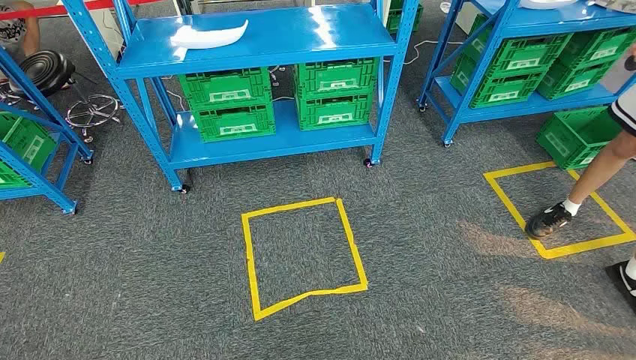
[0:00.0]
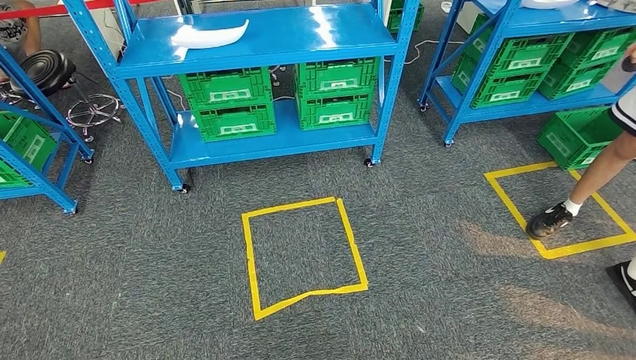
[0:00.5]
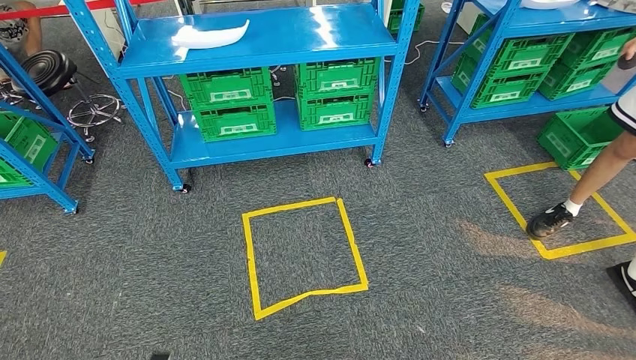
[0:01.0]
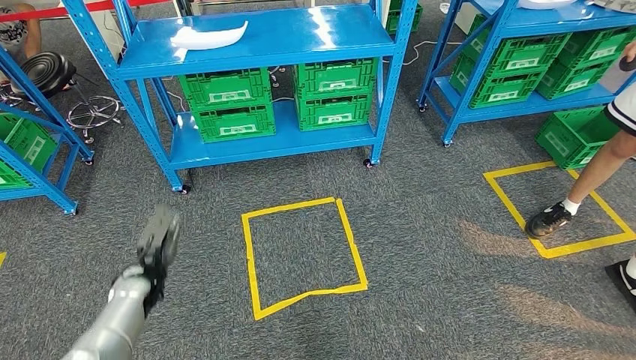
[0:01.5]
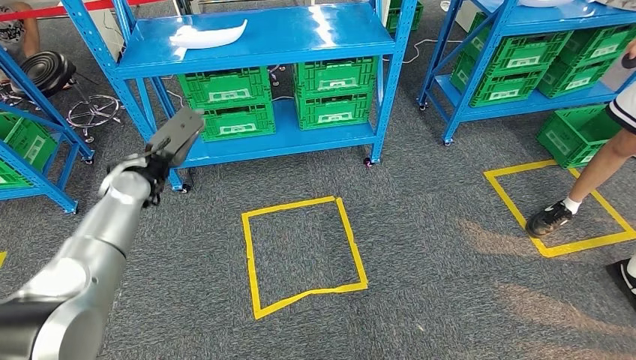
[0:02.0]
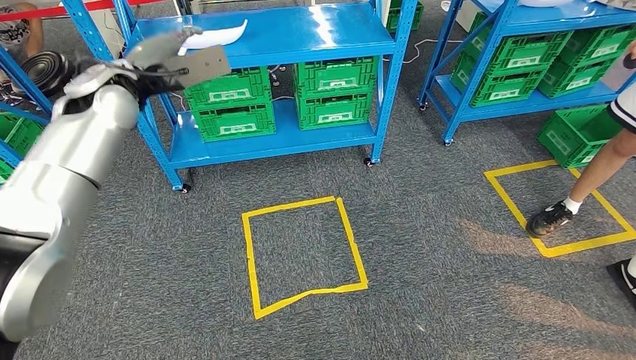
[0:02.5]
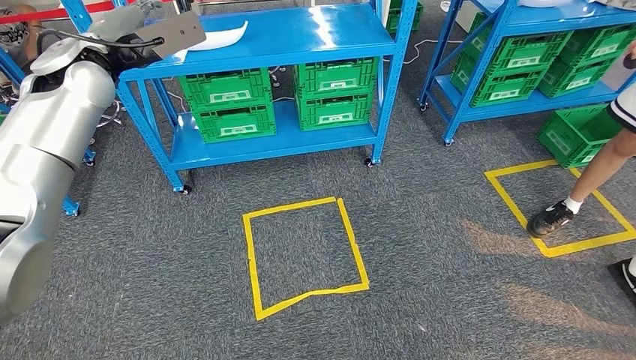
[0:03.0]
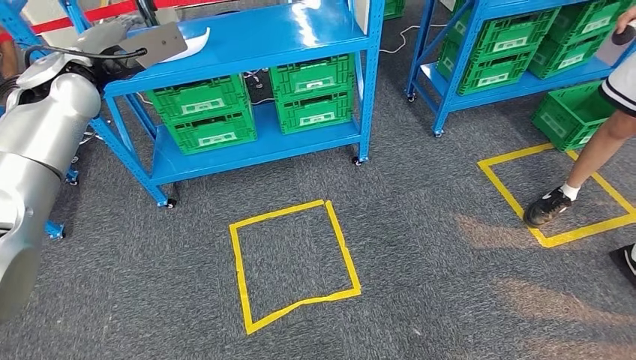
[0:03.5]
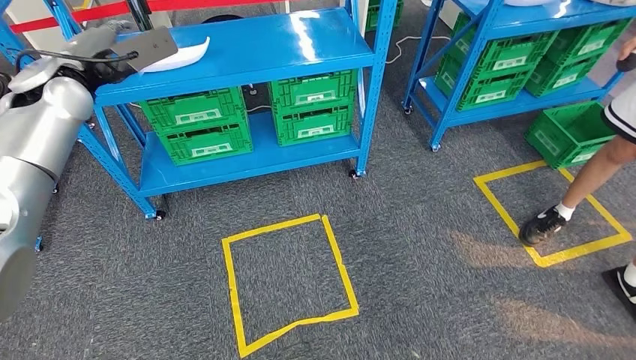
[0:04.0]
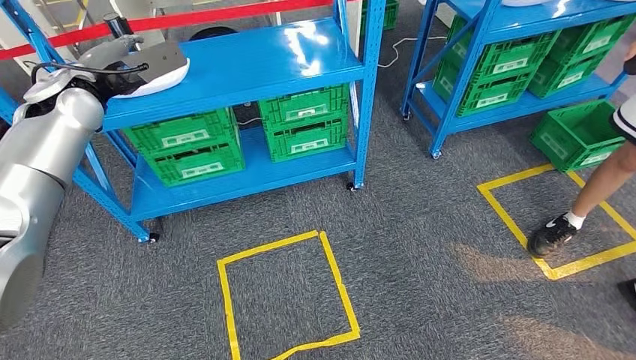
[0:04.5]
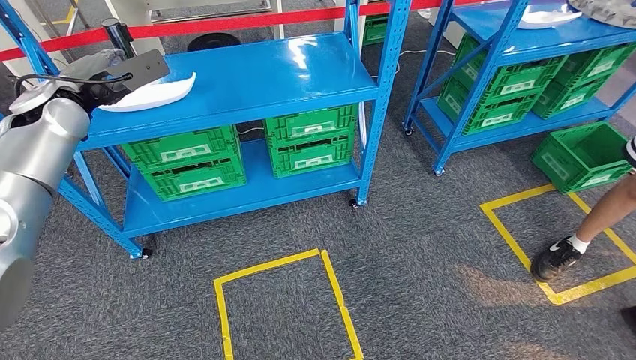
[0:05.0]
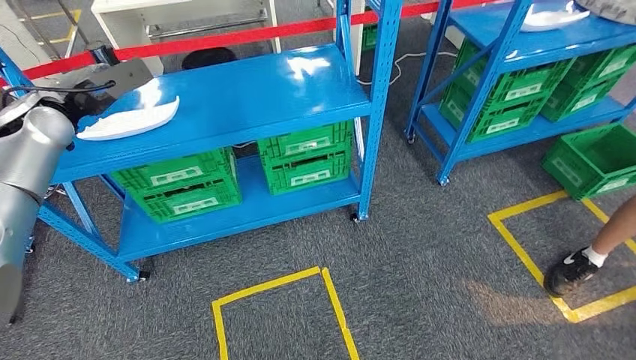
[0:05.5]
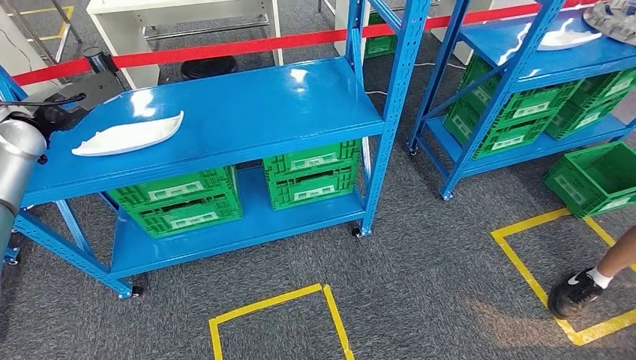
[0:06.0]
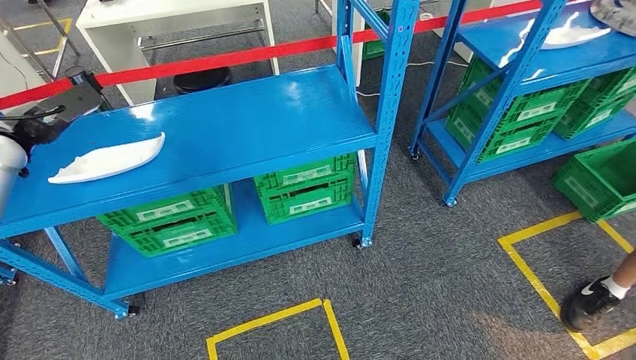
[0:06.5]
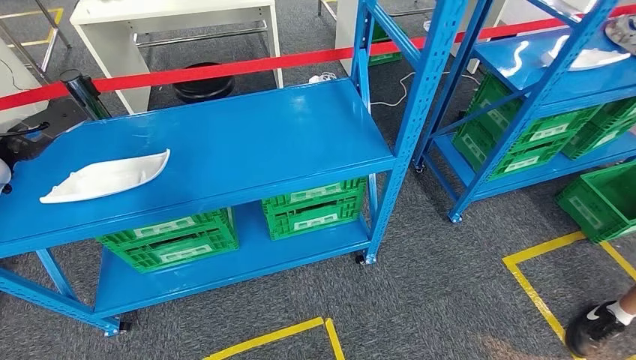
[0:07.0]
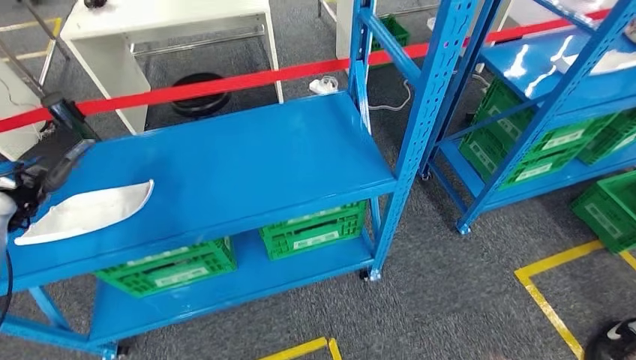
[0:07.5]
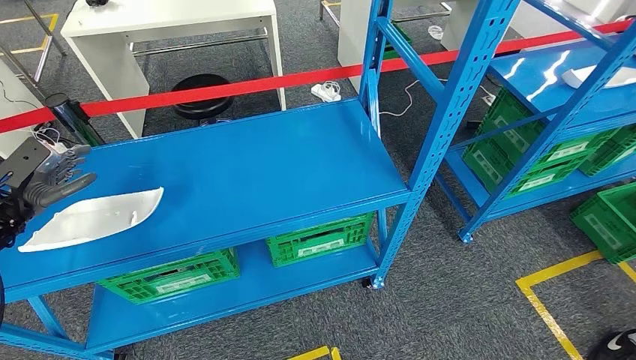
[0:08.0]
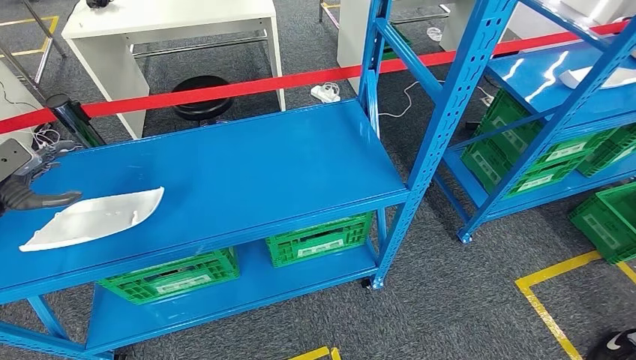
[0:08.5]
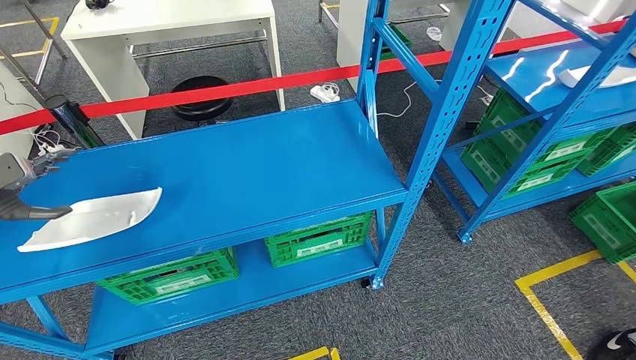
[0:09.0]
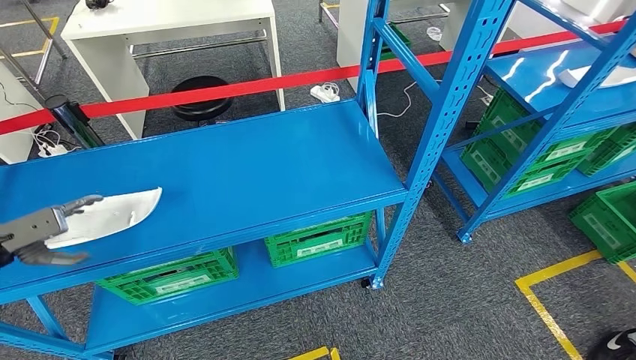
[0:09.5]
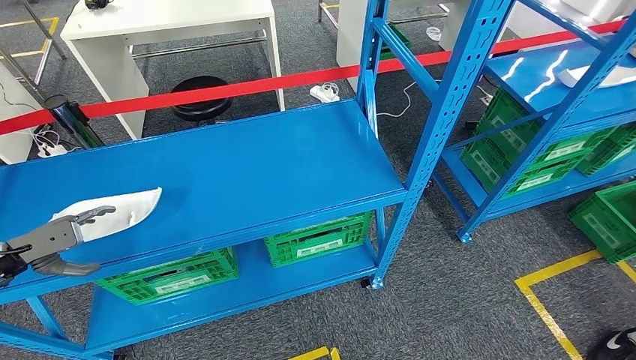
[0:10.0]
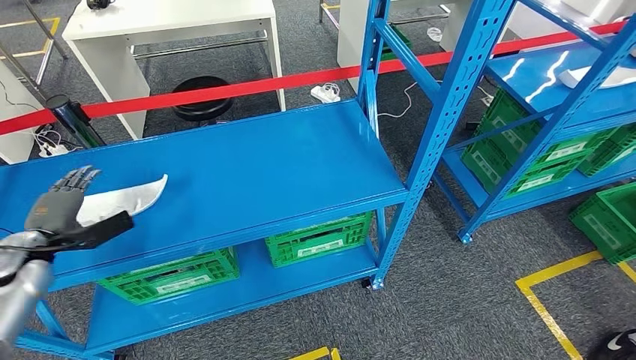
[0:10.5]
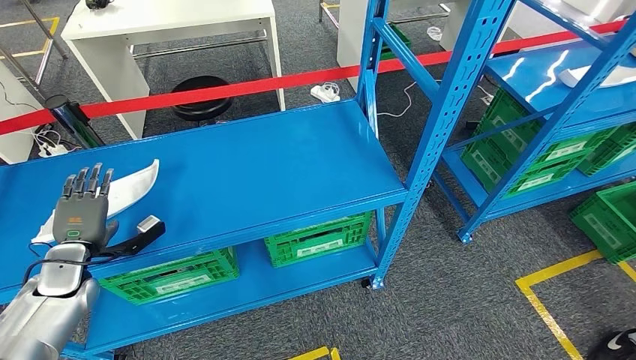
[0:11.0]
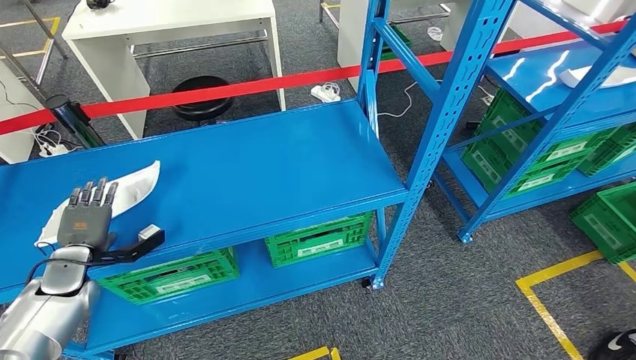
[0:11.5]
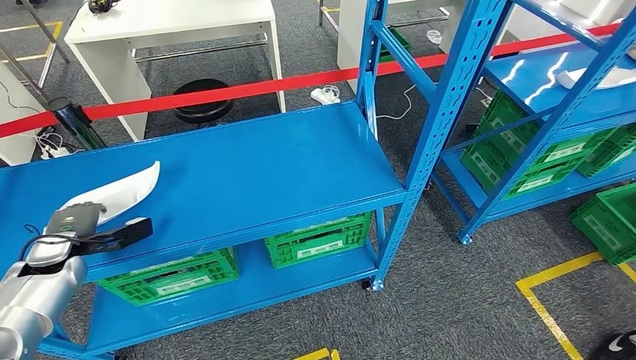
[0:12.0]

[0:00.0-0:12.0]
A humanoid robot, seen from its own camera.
0:08.0 to 0:10.0: The left hand shifts about 5 cm backward.
0:10.0 to 0:12.0: The left hand travels to the right by roughly 10 cm.

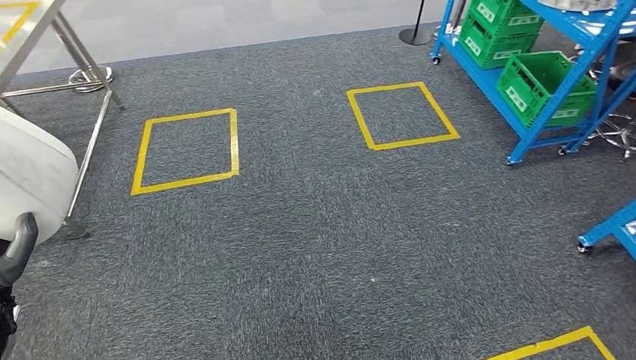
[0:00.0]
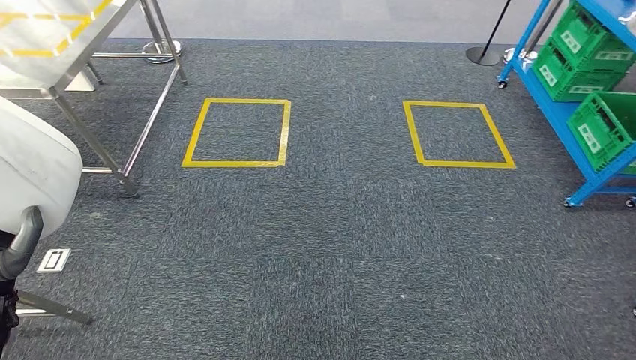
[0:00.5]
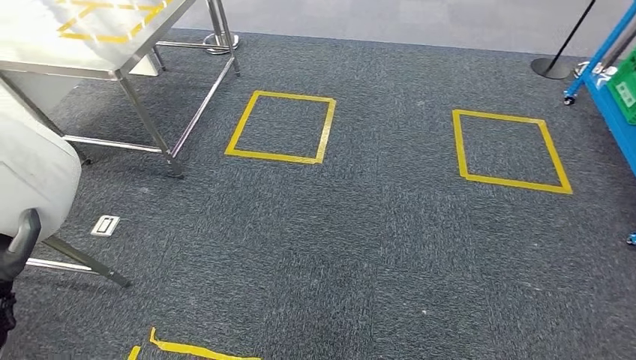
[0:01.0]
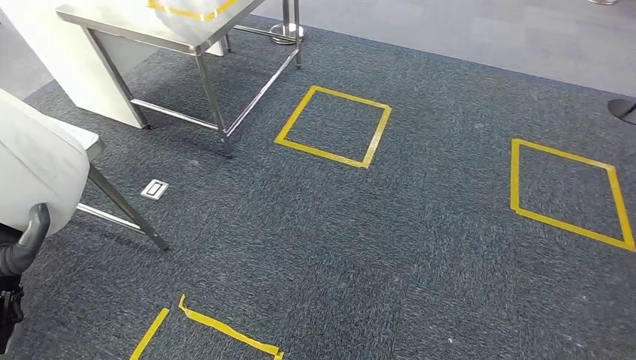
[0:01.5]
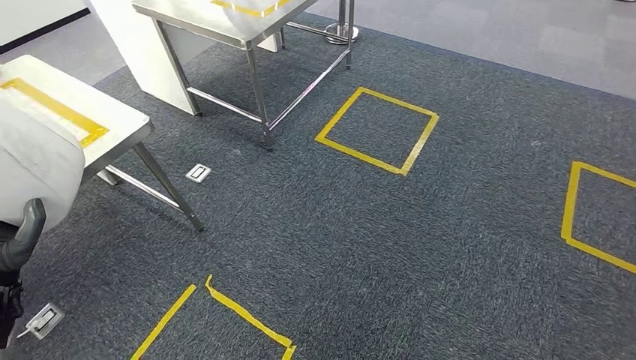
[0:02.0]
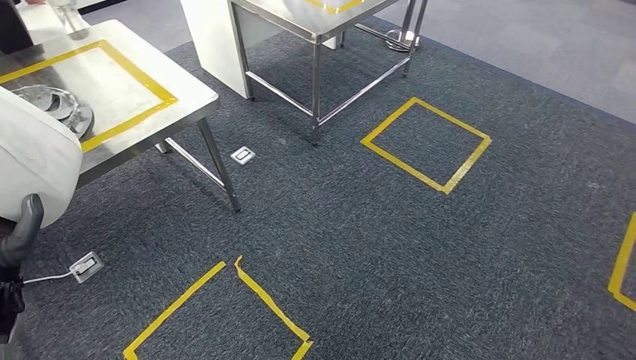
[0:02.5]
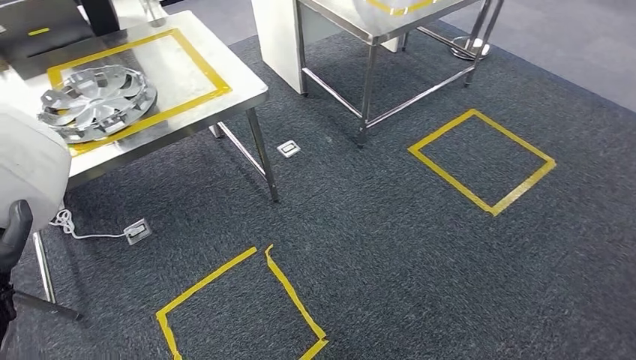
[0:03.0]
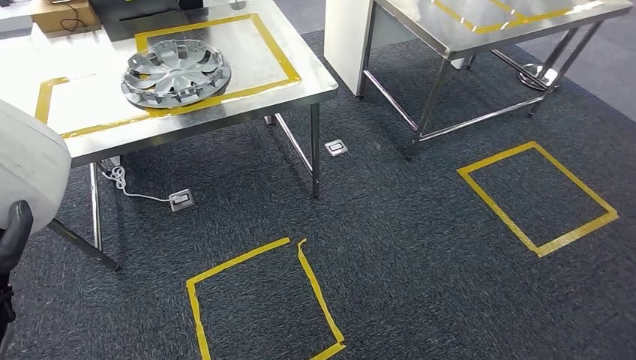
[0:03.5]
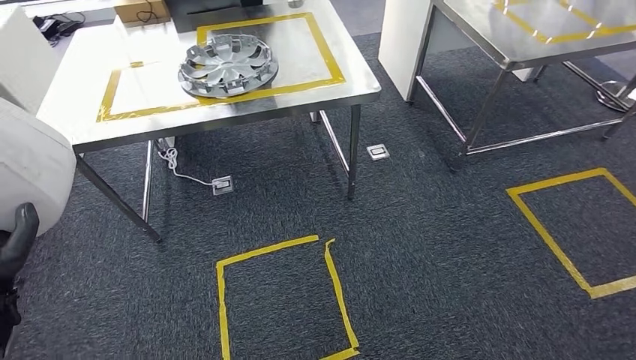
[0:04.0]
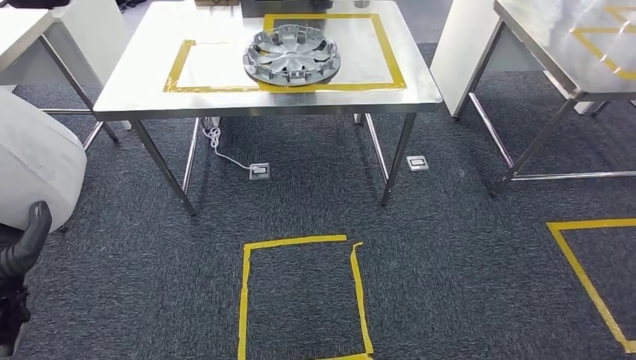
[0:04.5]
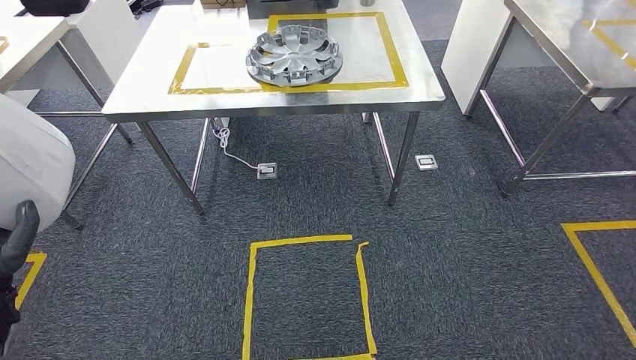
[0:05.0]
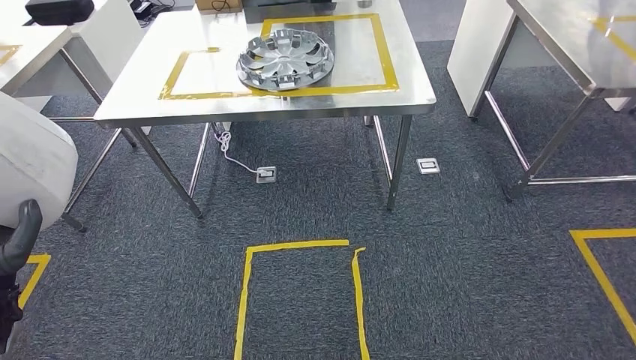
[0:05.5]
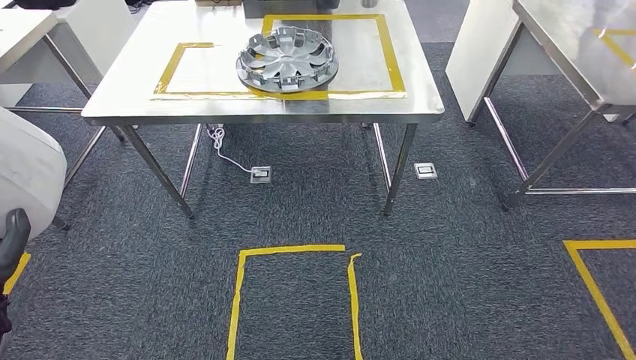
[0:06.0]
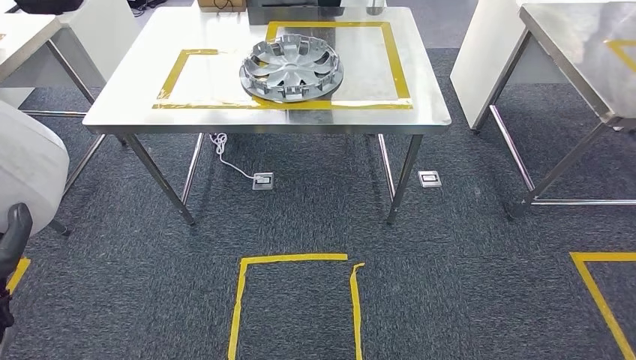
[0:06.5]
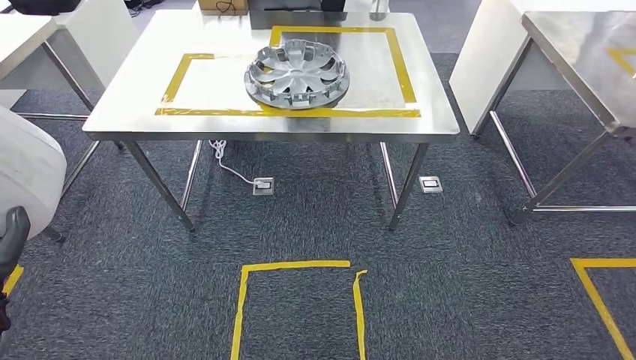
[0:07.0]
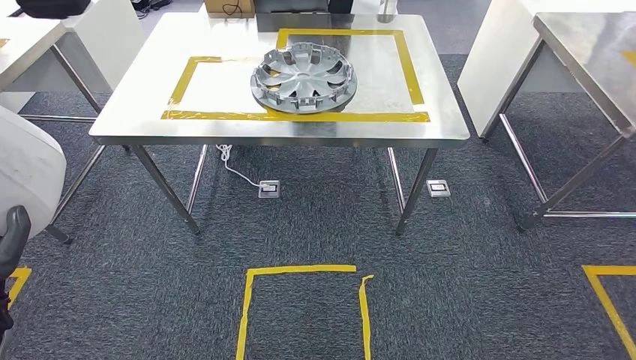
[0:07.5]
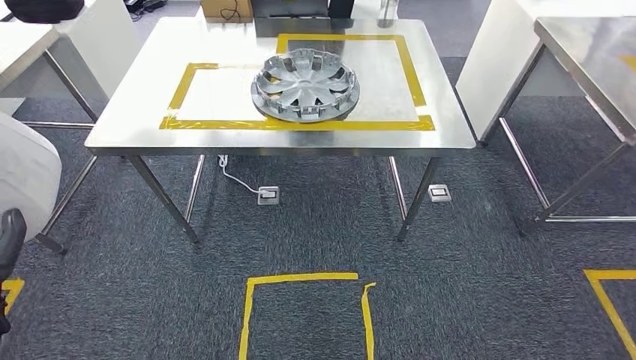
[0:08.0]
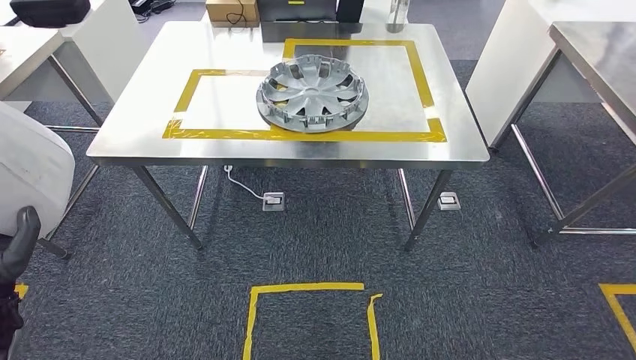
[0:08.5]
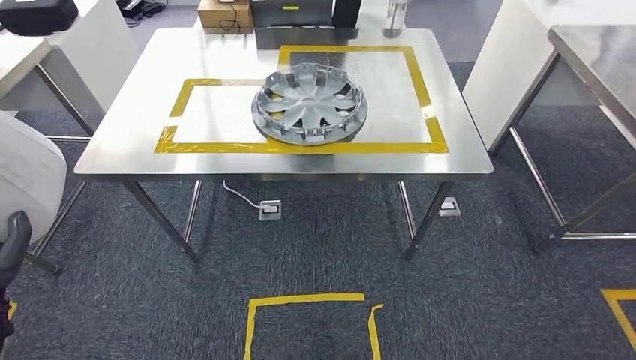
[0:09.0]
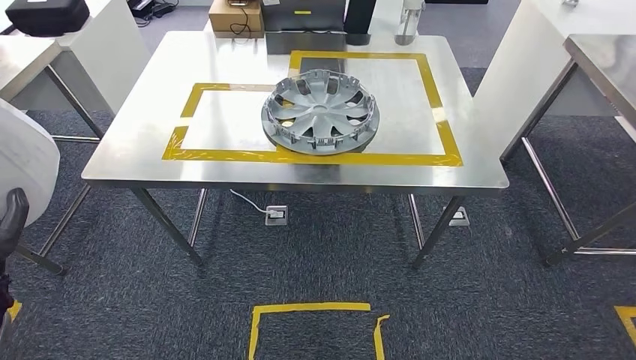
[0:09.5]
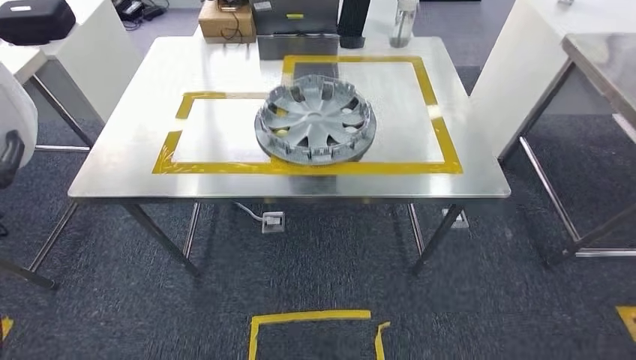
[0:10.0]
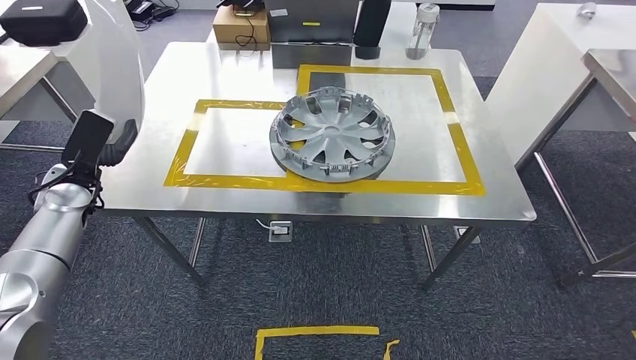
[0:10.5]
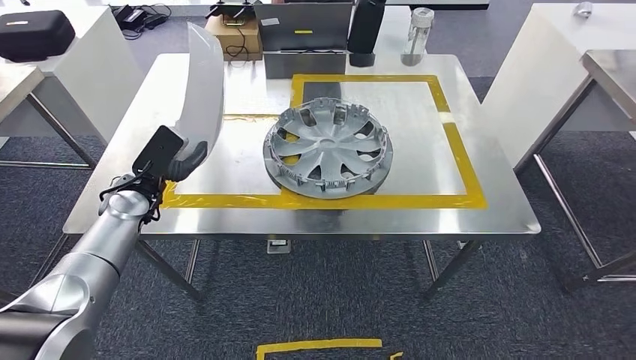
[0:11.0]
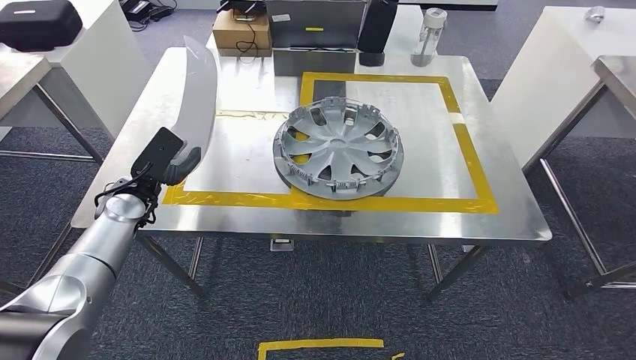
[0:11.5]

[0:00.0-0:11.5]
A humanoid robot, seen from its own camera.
Step, 0:00.0 to 0:04.5: Move the small parts to the workbench.
